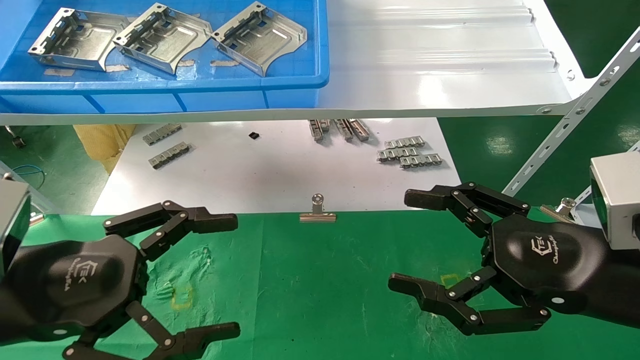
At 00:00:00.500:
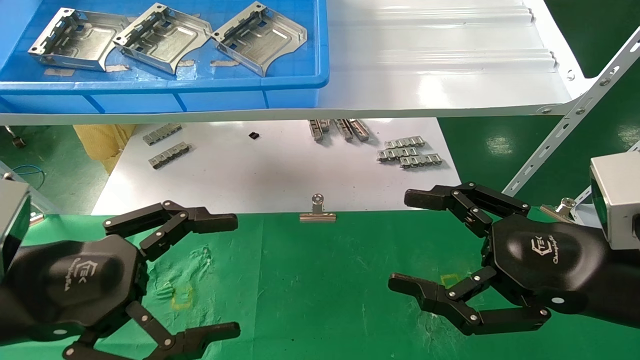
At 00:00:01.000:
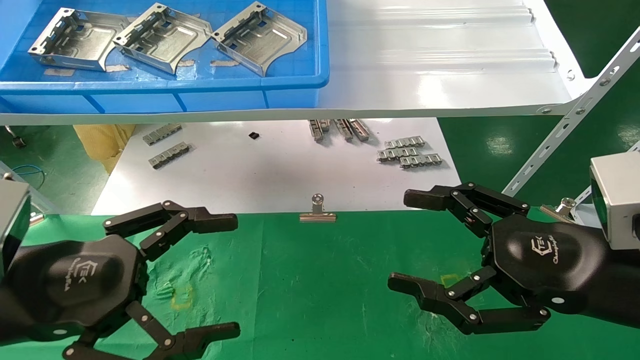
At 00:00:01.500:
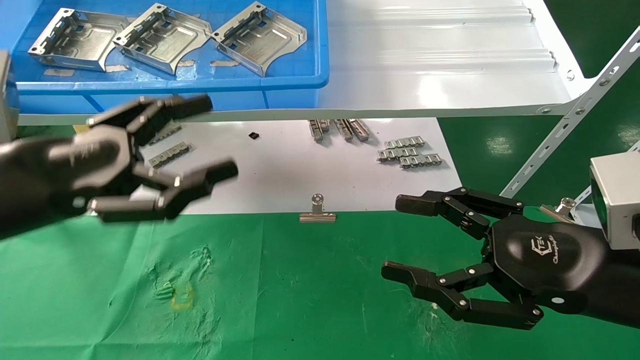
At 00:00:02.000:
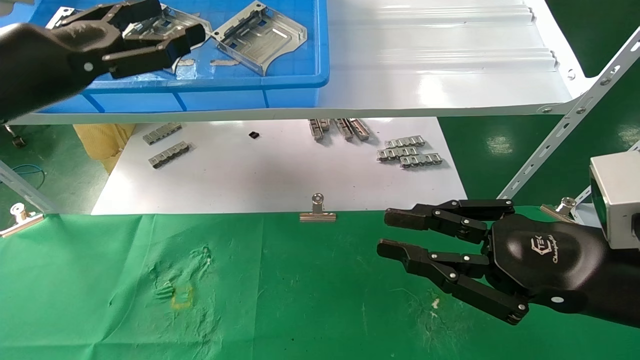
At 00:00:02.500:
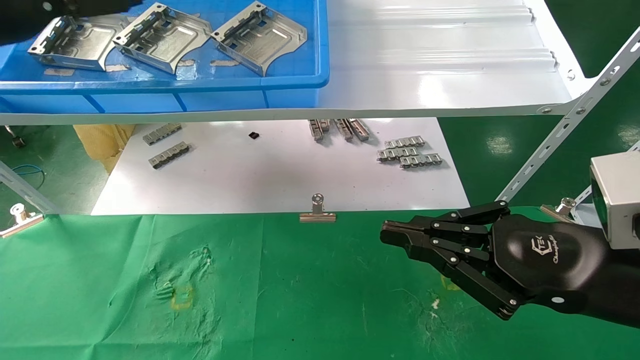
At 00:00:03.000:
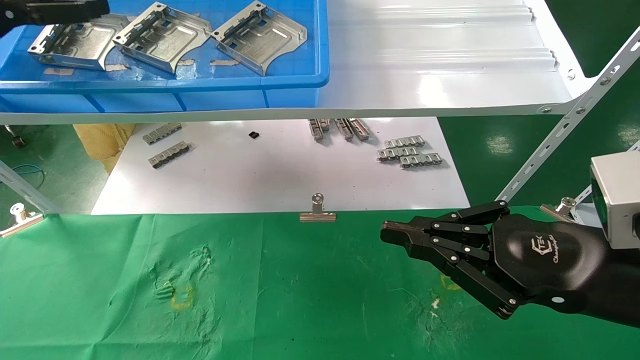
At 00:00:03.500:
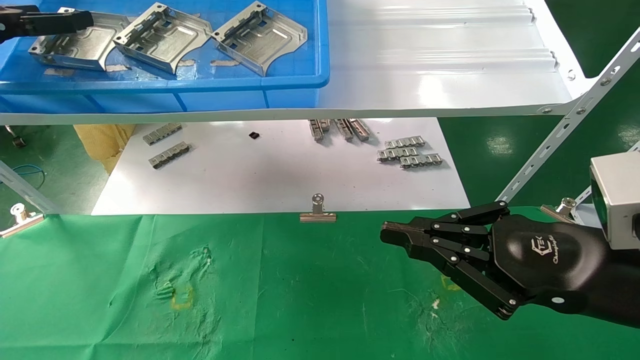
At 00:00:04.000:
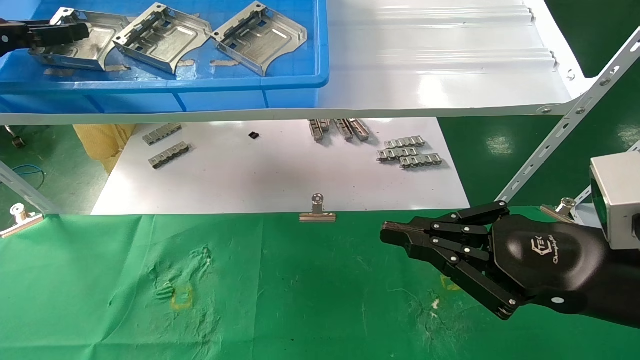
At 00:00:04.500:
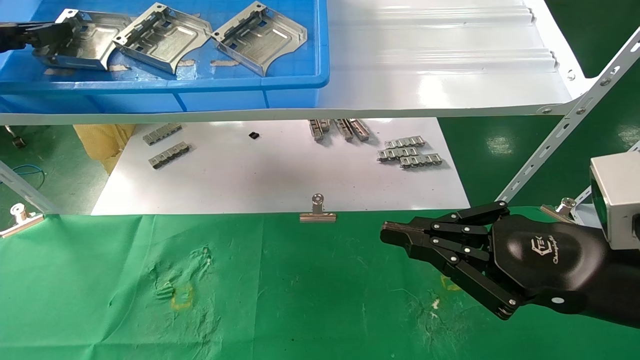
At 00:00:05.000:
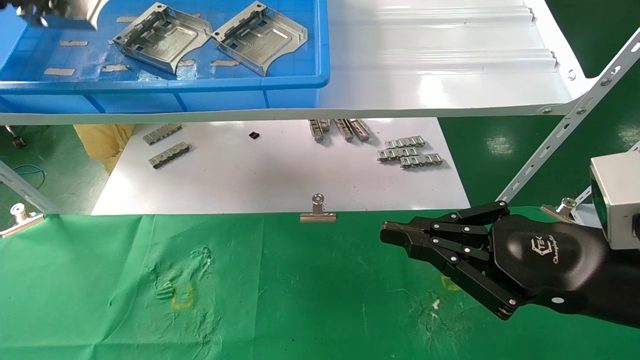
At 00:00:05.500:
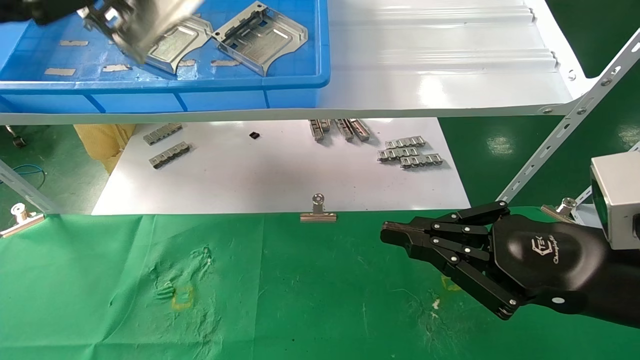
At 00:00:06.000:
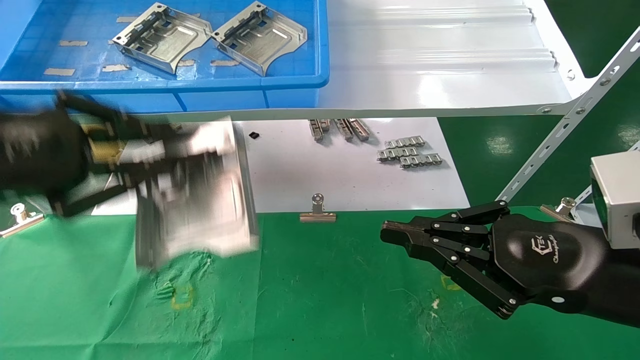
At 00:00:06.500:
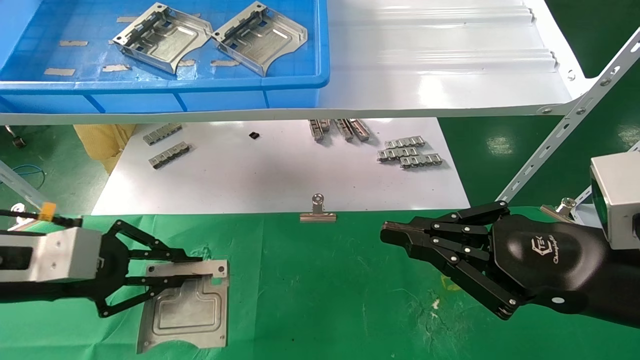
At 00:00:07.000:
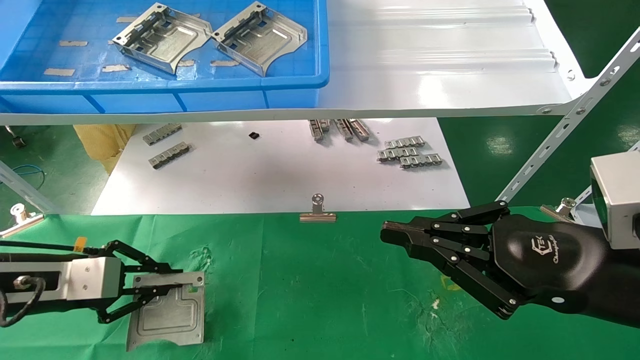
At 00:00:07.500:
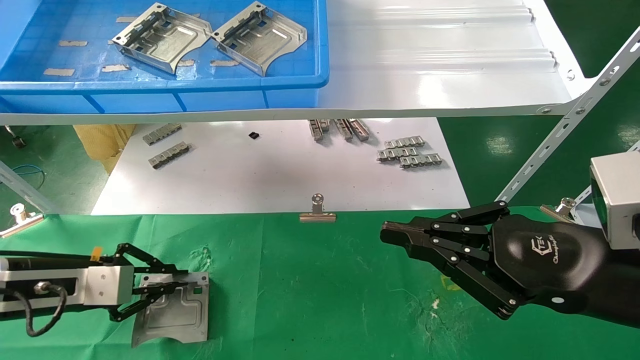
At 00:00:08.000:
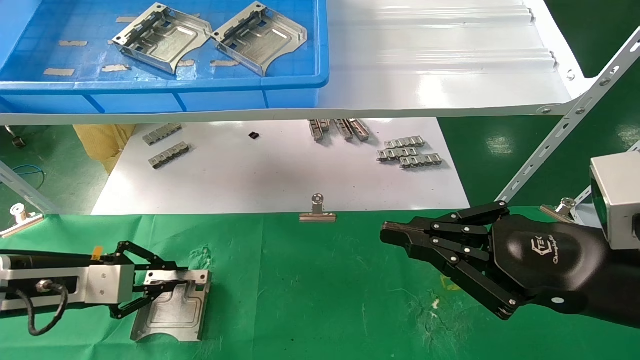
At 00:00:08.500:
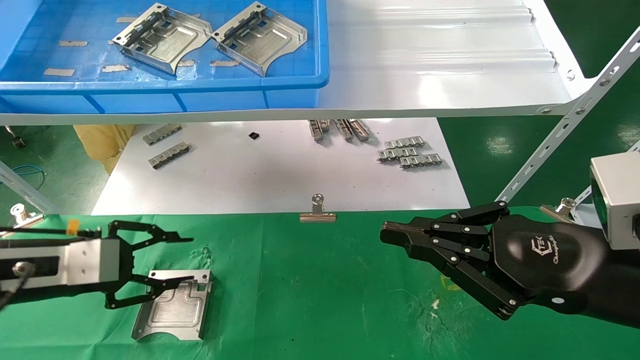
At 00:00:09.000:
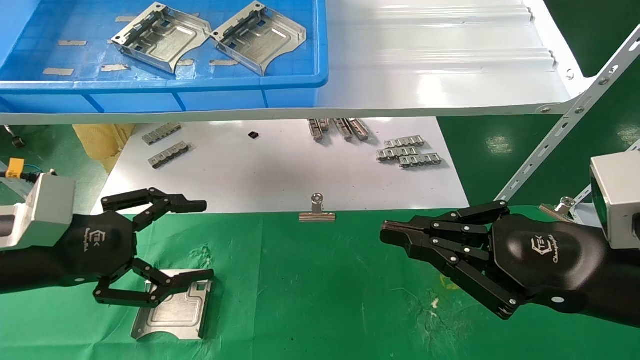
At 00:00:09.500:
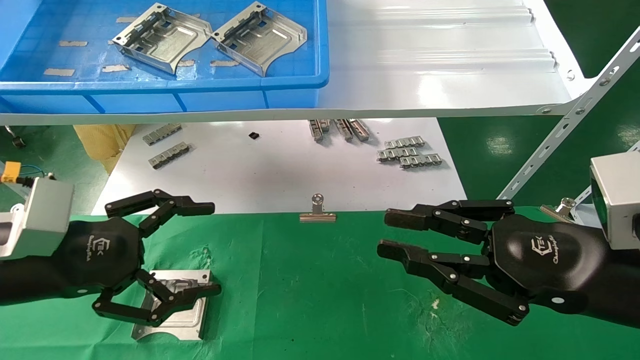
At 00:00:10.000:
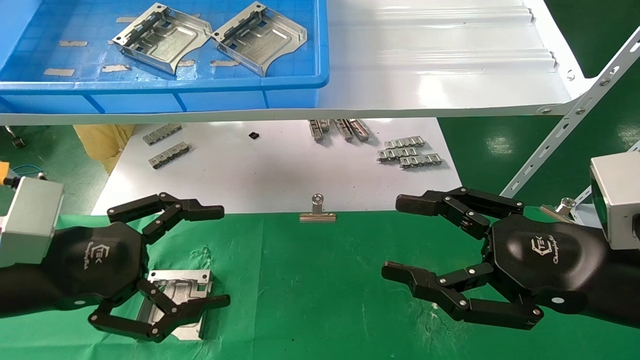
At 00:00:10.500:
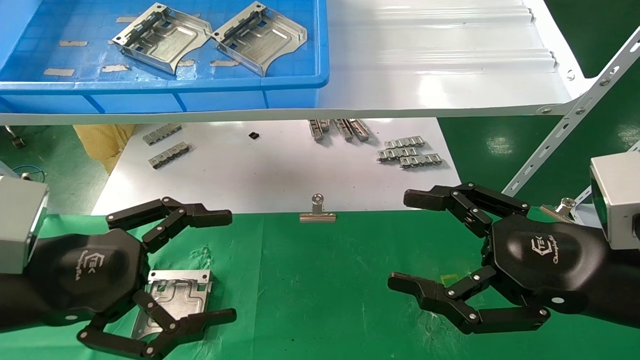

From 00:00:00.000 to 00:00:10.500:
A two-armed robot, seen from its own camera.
Task of the whole recording: use the mechanical arm to pick up the parts and place them on the table.
Step, from 00:00:01.500 to 00:00:04.500: Pick up the hard drive bracket from the feeding area.
Step, from 00:00:05.000 to 00:00:08.000: Place the hard drive bracket into the box.
From 00:00:00.000 to 00:00:02.000: The left gripper goes some 20 cm upward and forward. Meanwhile the right gripper closes up.
From 00:00:02.000 to 00:00:04.000: The right gripper closes; the left gripper shifts roughly 15 cm to the left and forward, and closes.
From 00:00:04.000 to 00:00:06.500: The left gripper goes about 25 cm downward, backward and to the right, and closes.
From 00:00:08.500 to 00:00:10.500: The left gripper travels backward and to the right by roughly 10 cm, and opens its fingers; the right gripper opens its fingers.
